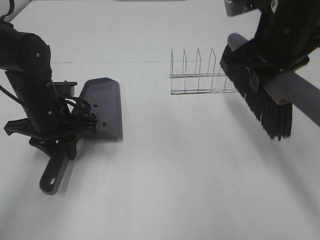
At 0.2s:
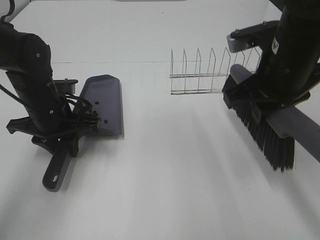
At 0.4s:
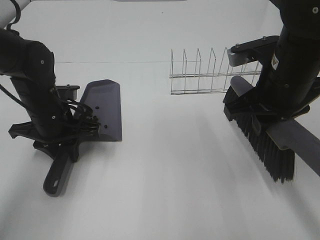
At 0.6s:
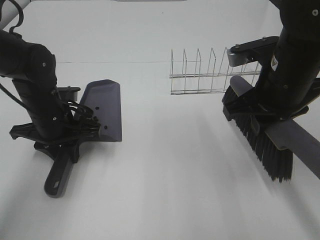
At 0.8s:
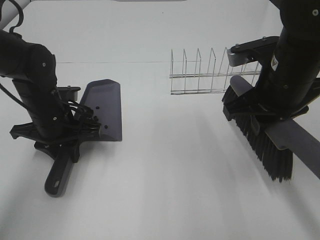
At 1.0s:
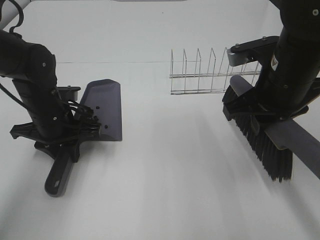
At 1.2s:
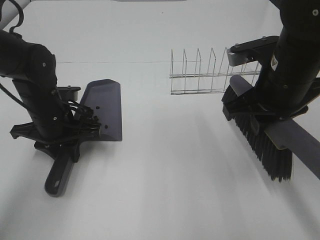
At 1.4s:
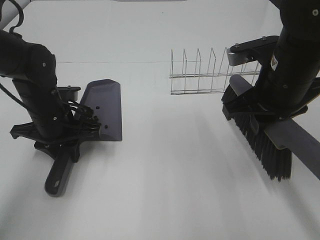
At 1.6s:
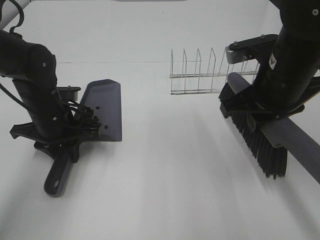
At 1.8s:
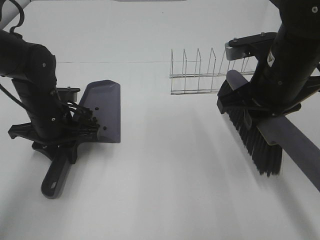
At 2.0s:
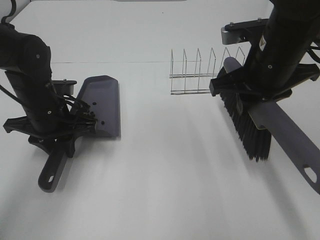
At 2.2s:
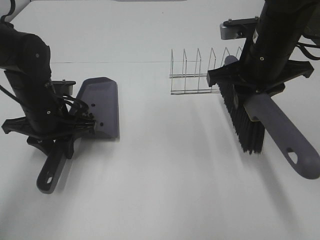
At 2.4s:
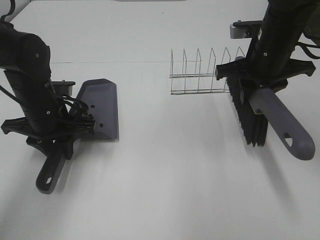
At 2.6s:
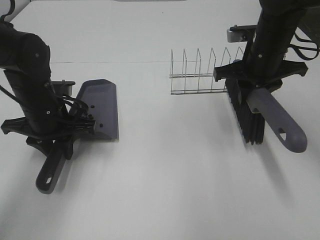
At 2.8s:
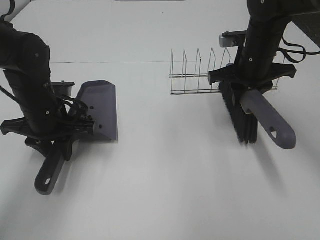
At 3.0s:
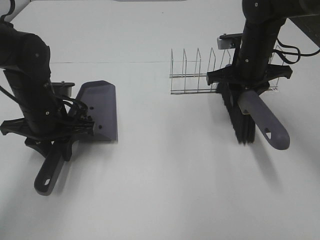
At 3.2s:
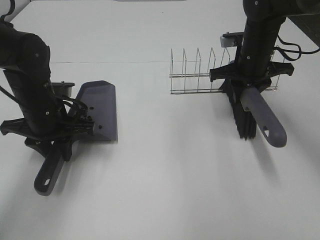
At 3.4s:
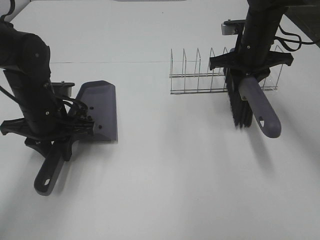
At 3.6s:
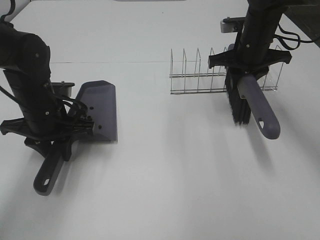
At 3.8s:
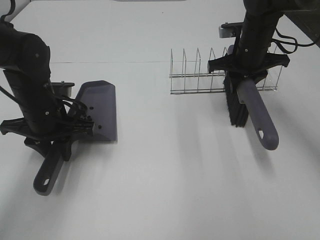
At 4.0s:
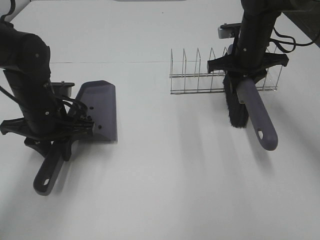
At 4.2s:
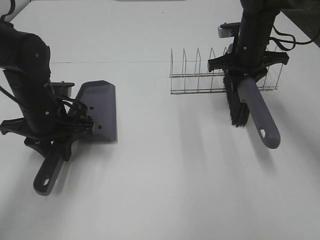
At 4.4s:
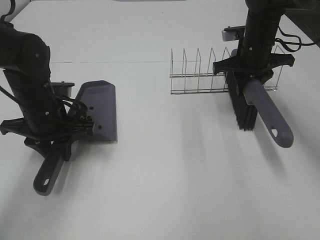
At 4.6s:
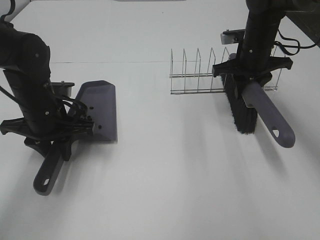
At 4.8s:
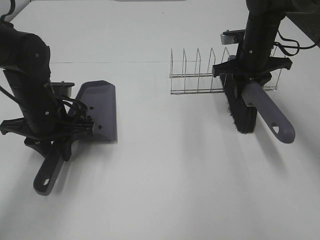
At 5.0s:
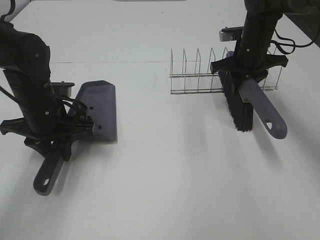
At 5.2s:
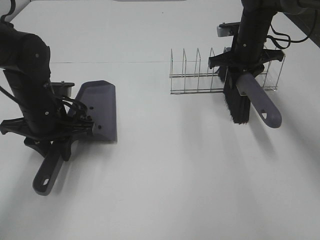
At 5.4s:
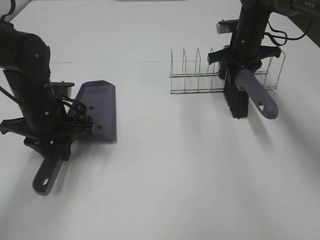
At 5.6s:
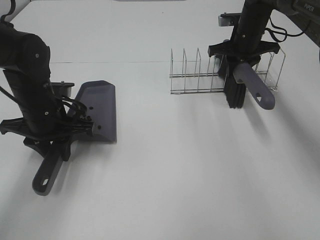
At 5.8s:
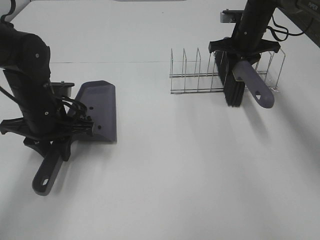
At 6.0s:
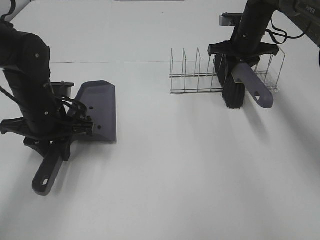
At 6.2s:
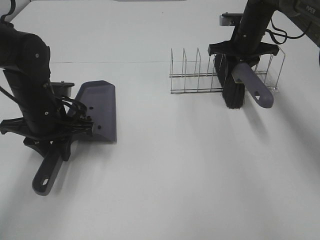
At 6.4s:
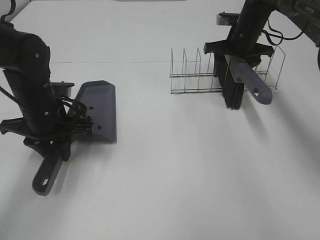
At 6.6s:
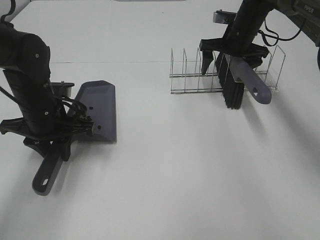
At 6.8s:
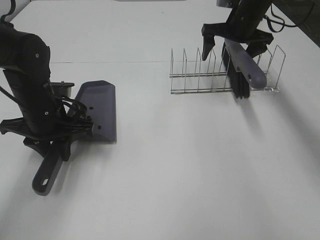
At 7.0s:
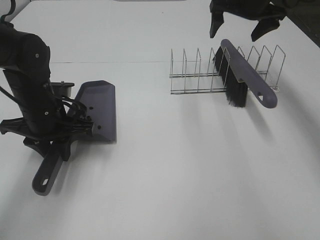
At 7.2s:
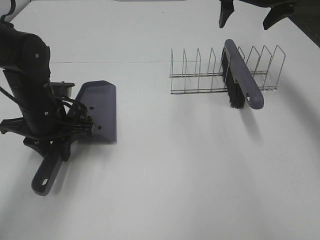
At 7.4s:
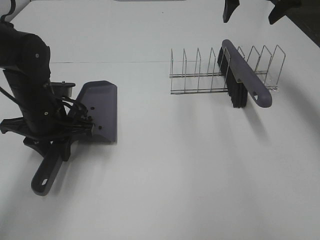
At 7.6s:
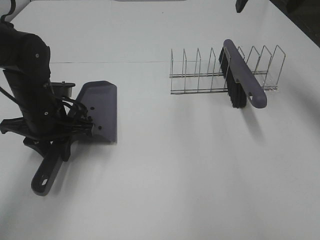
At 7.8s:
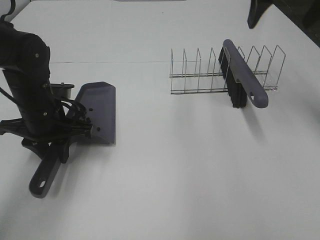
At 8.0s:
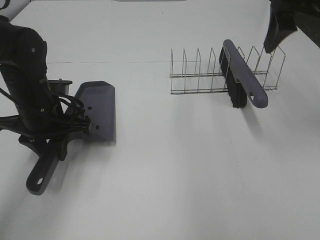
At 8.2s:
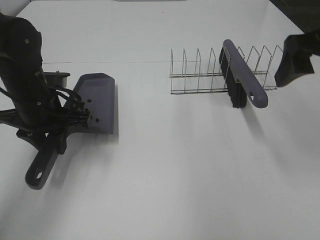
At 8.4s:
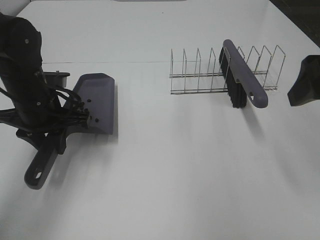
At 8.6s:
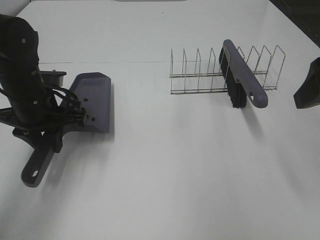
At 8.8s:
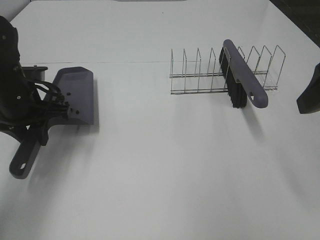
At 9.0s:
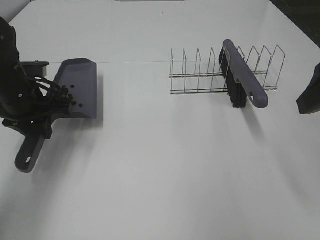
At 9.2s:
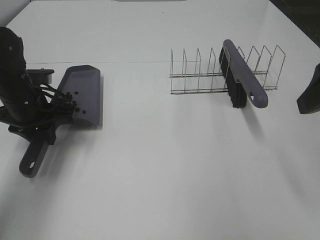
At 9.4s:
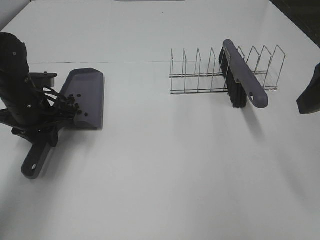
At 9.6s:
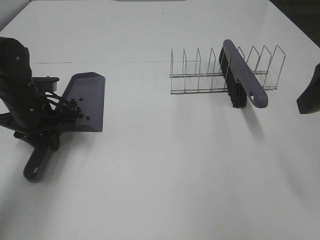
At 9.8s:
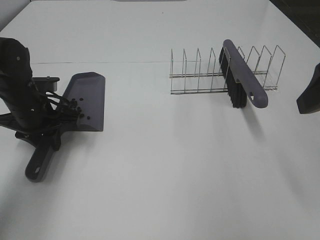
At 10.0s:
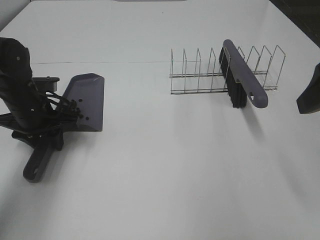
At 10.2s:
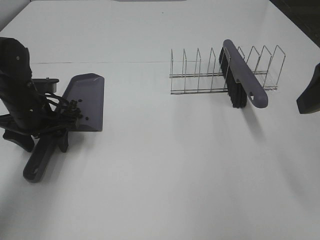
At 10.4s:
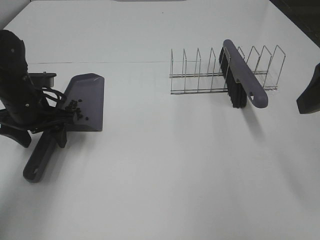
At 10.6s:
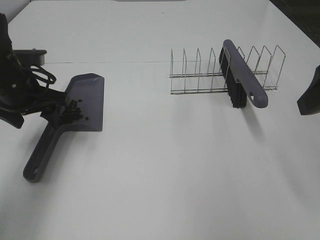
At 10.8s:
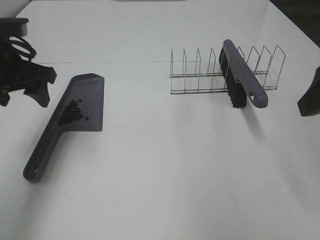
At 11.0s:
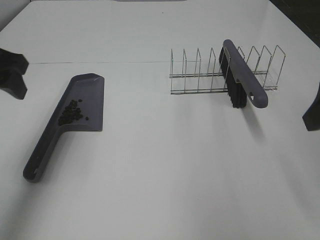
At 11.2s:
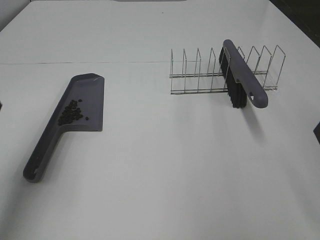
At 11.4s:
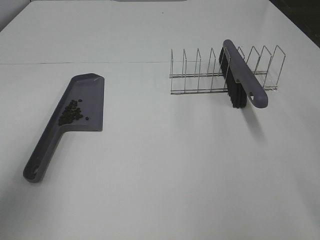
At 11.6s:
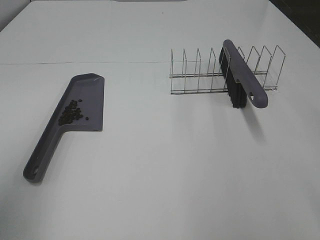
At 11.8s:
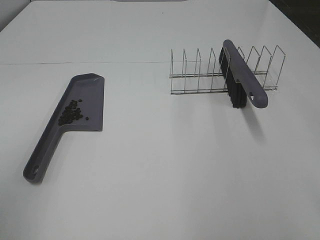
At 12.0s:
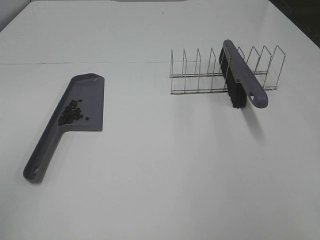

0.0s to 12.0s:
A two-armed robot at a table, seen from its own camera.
Task of the whole recording: Sweep Coffee Bean.
Step, 0.0s to 6.6s: Right hand:place the broom on the rack.
0.0s to 1.6s: The right gripper travels downward by roughly 5 cm.
1.6s to 3.0s: The right gripper is displaced forward by about 15 cm.
3.0s to 4.4s: The grippers move only a little.
4.4s to 6.0s: The right gripper moves forward, some 5 cm.
6.0s to 7.6s: The right gripper goes approximately 20 cm upward and backward, and opens up.
7.6s to 9.0s: The right gripper is displaced backward by about 25 cm.
9.0s to 10.4s: Neither gripper changes place.
10.4s to 12.0s: The right gripper is displaced backward by some 10 cm.

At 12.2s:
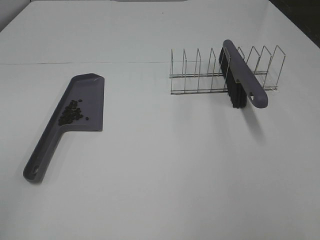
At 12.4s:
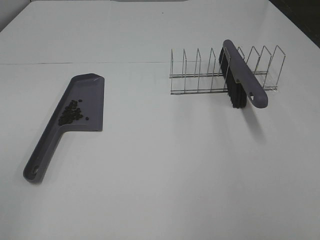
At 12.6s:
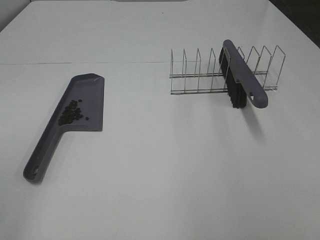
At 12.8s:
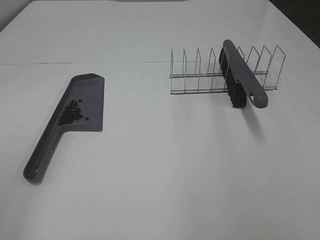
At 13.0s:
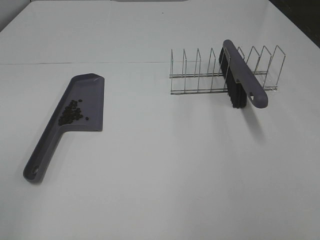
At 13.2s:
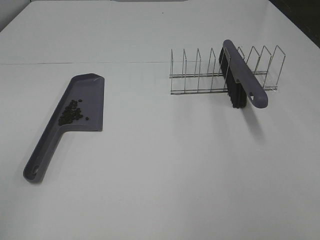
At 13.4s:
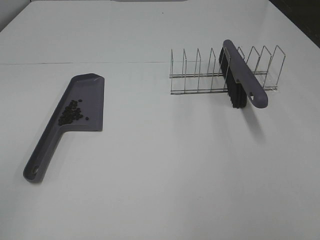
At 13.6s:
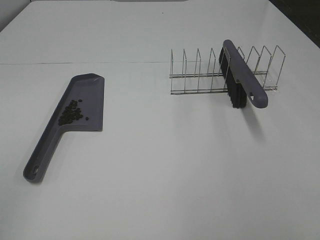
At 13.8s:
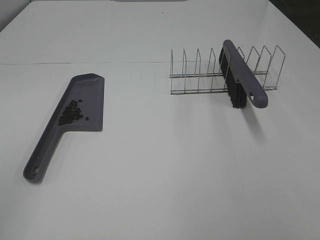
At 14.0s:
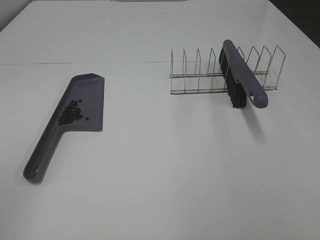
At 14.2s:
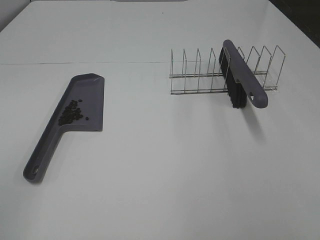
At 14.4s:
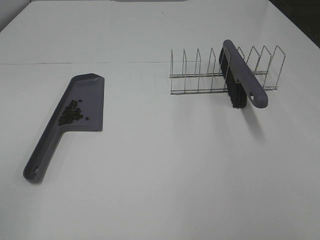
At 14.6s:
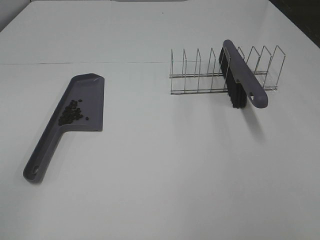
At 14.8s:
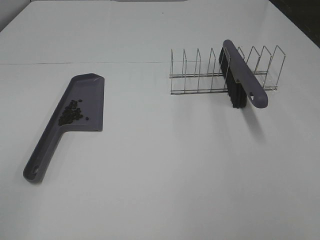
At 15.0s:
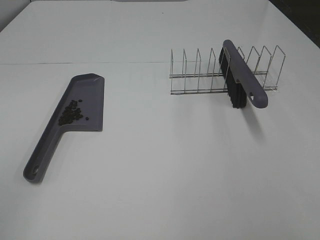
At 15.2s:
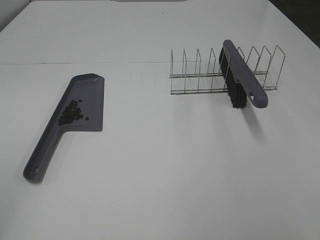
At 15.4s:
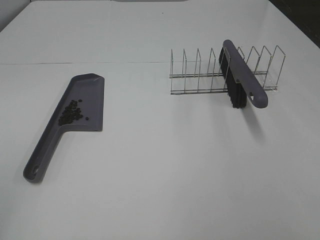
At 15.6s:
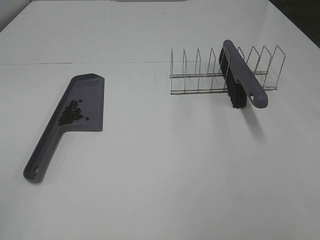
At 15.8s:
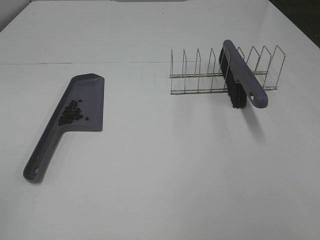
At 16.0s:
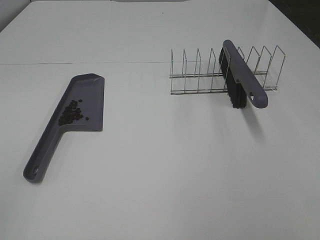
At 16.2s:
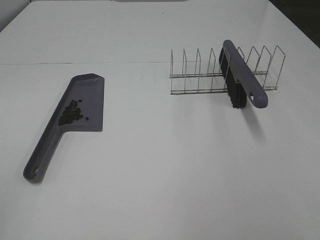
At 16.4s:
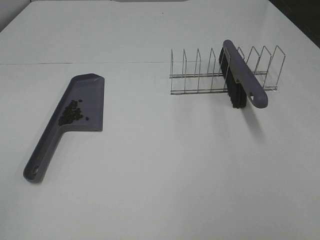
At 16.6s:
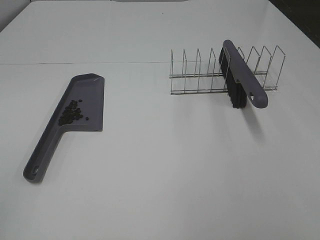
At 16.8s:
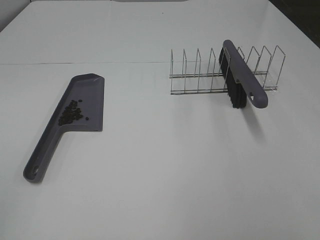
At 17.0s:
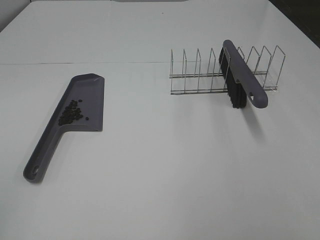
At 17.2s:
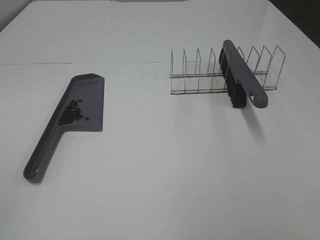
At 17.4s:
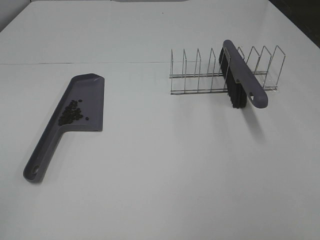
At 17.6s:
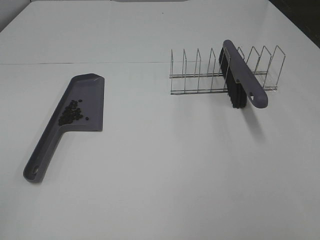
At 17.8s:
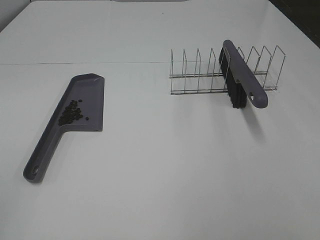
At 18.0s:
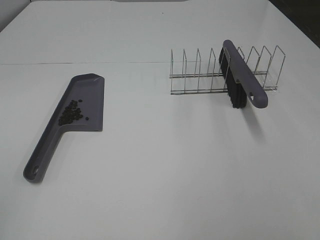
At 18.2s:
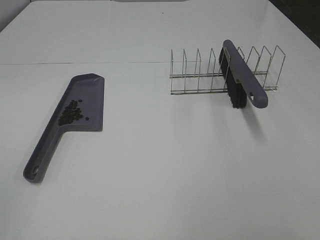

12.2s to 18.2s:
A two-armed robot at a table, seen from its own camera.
Task of the whole recording: Sweep Coffee Bean.
15.2s to 18.2s: Both grippers stay about where they are.

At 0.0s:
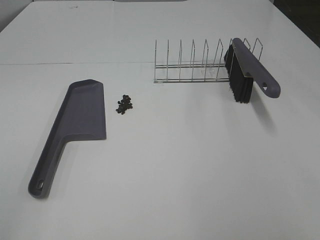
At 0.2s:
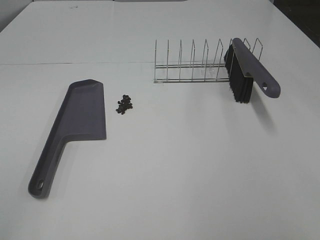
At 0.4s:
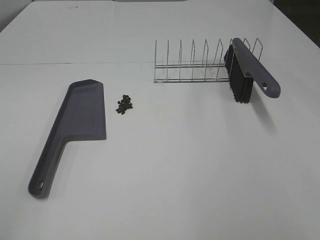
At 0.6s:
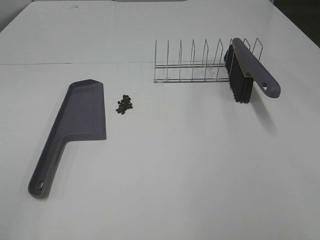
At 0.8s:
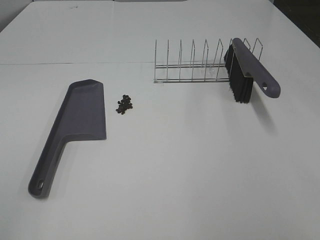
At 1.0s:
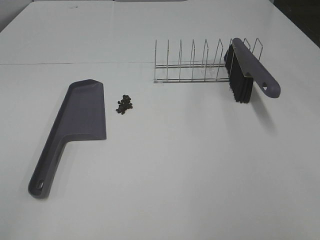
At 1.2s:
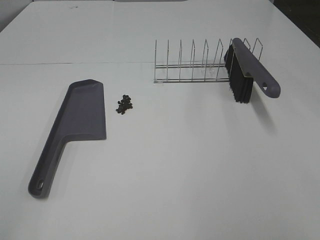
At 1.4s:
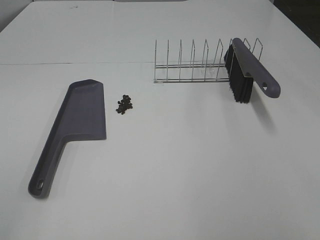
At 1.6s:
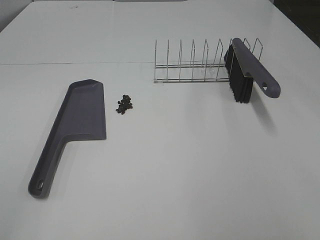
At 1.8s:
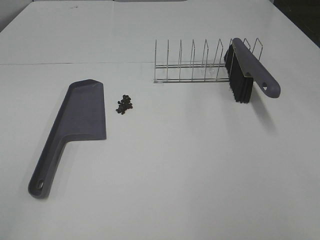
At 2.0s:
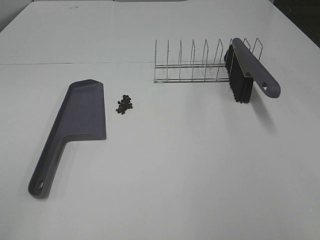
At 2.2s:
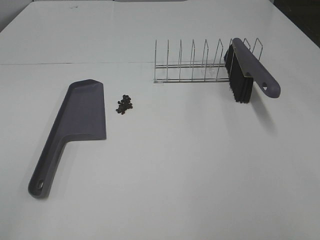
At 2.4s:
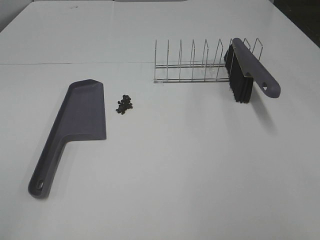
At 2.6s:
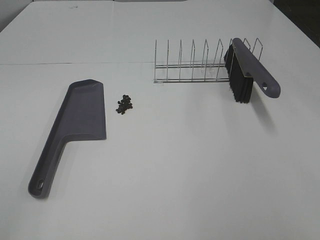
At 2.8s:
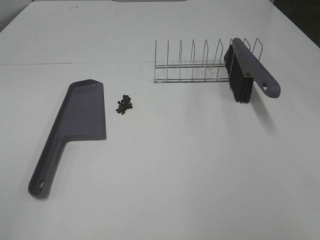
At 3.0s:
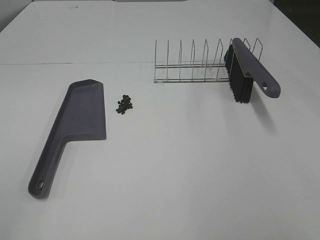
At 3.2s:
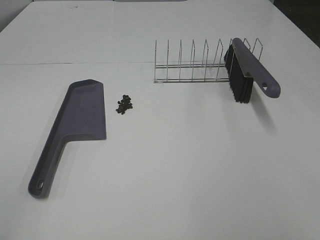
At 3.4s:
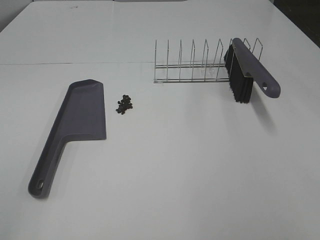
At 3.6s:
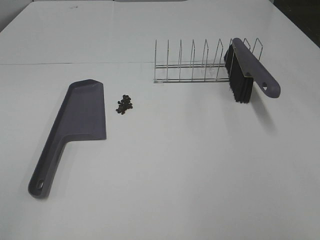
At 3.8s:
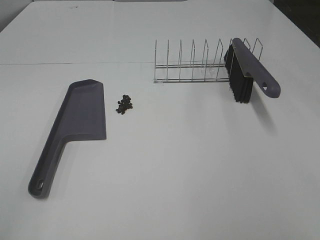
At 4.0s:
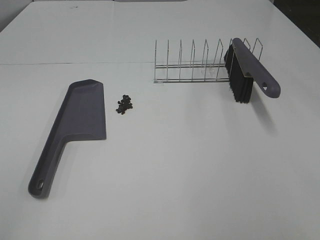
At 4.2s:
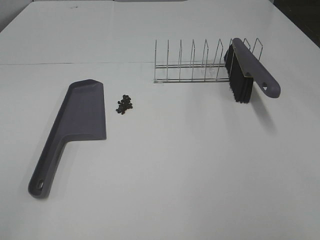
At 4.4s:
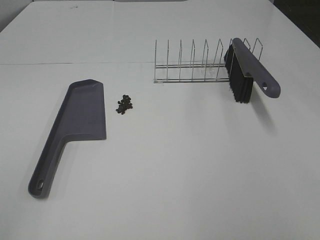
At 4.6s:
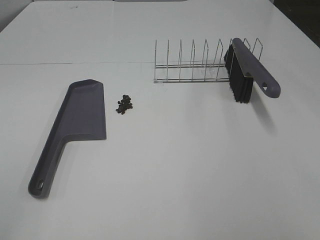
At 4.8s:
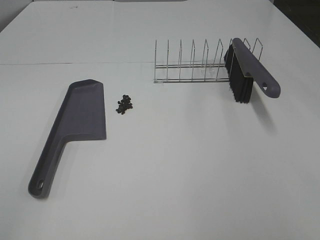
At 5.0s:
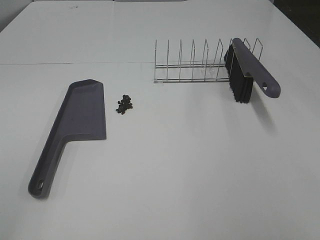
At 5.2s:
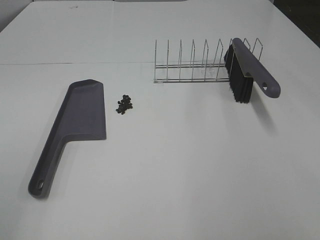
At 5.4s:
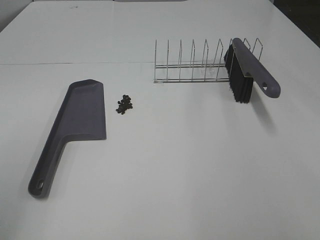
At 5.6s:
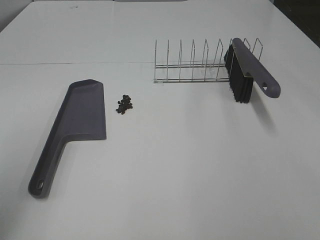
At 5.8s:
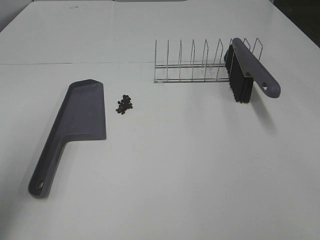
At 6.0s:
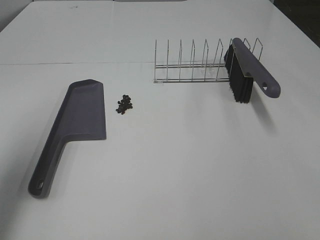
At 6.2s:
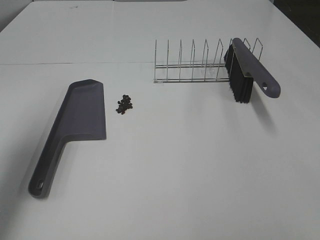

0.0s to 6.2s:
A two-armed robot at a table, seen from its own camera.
Task of the whole recording: Sweep Coffee Bean.
0.0s to 4.6s: Both grippers stay put.
4.6s to 6.2s: The left gripper goes roughly 25 cm forward.
